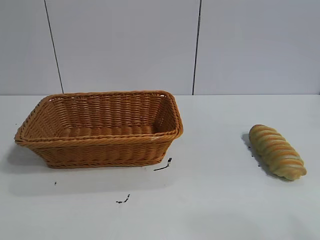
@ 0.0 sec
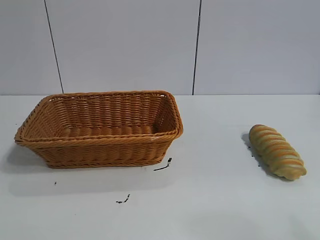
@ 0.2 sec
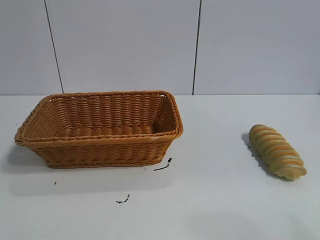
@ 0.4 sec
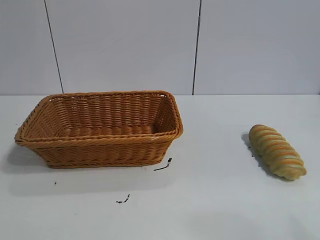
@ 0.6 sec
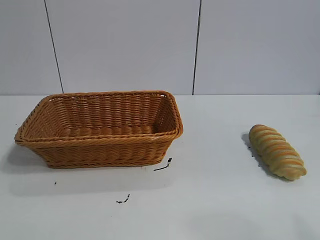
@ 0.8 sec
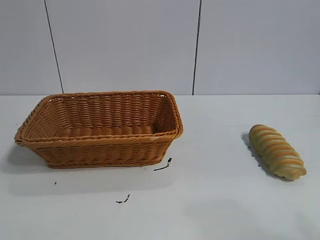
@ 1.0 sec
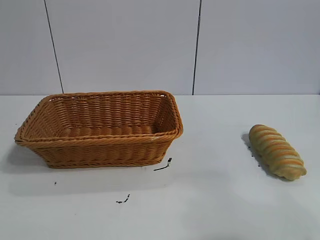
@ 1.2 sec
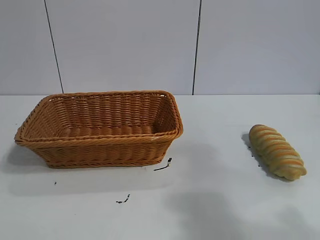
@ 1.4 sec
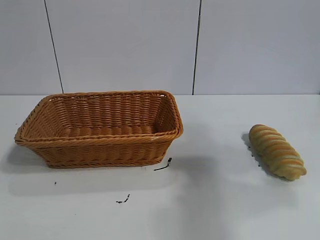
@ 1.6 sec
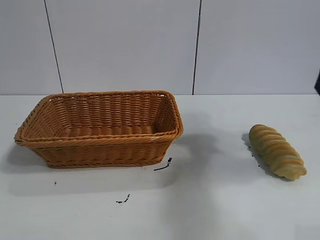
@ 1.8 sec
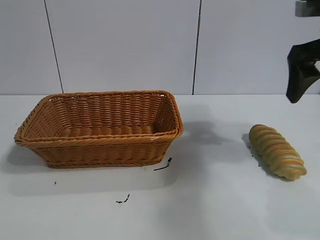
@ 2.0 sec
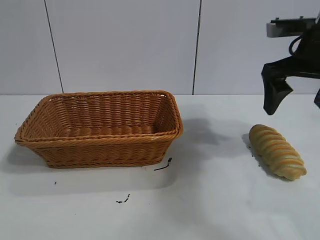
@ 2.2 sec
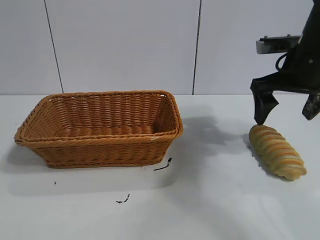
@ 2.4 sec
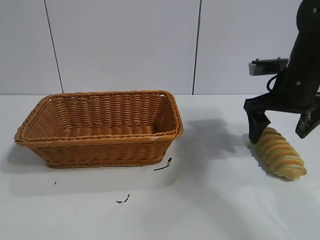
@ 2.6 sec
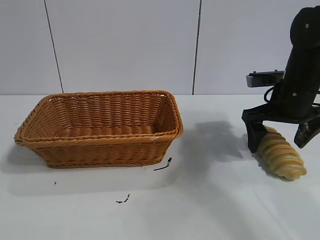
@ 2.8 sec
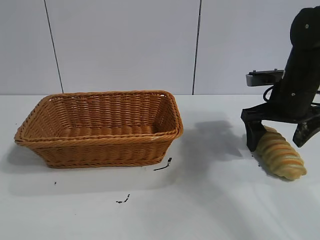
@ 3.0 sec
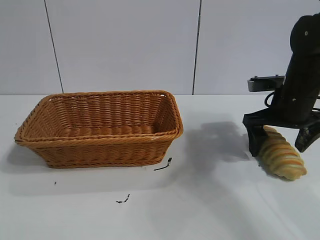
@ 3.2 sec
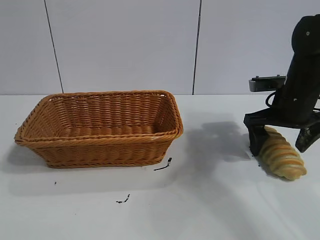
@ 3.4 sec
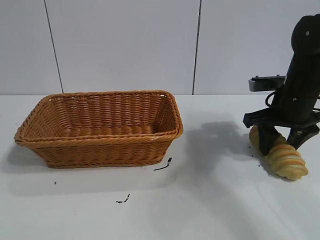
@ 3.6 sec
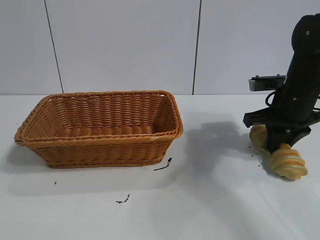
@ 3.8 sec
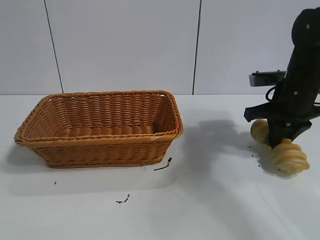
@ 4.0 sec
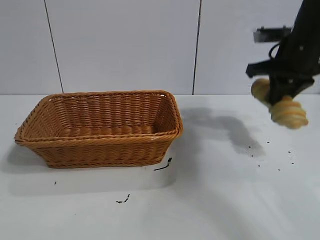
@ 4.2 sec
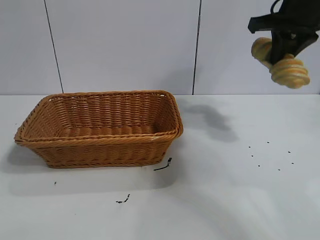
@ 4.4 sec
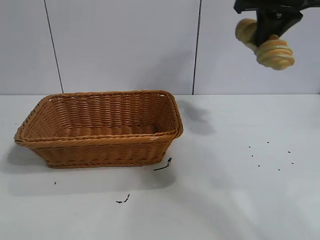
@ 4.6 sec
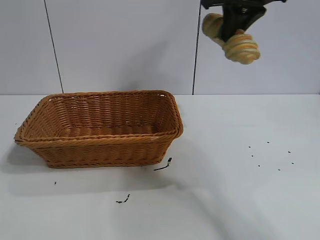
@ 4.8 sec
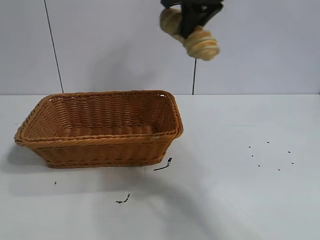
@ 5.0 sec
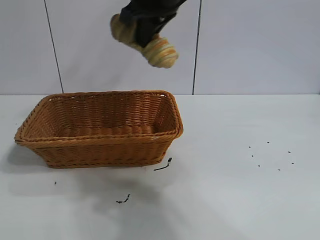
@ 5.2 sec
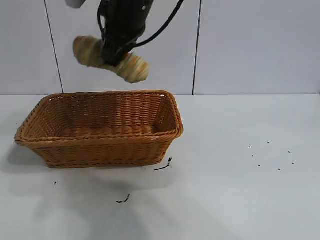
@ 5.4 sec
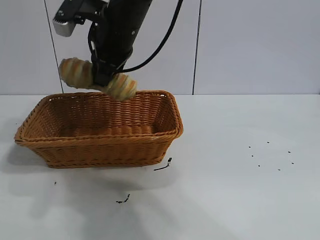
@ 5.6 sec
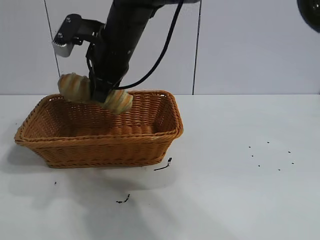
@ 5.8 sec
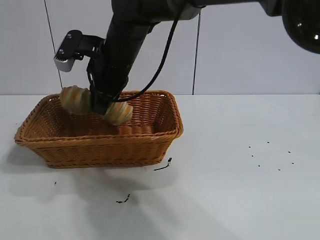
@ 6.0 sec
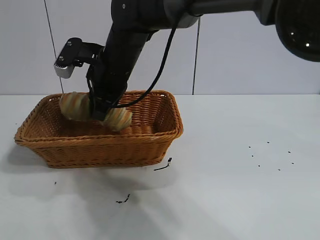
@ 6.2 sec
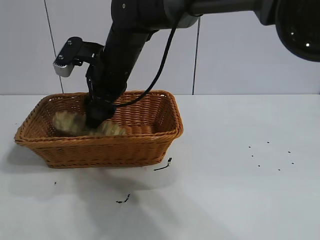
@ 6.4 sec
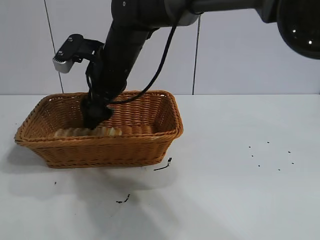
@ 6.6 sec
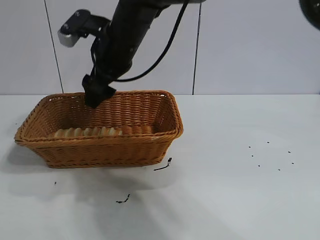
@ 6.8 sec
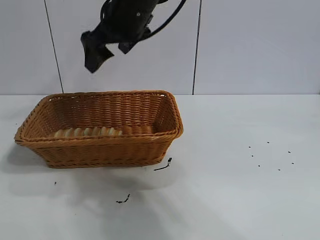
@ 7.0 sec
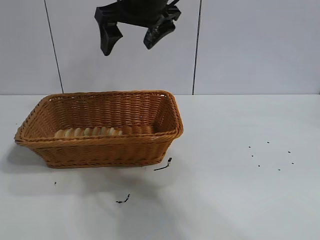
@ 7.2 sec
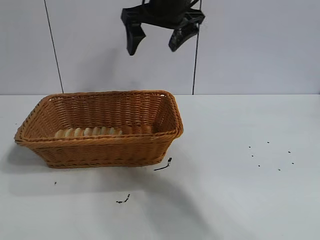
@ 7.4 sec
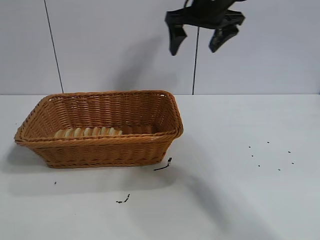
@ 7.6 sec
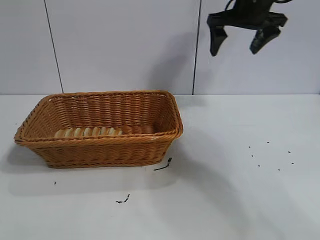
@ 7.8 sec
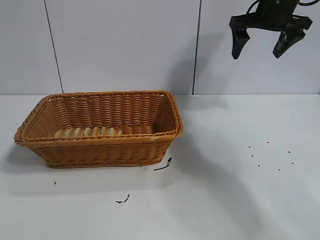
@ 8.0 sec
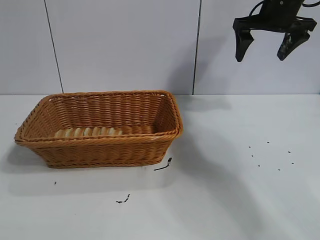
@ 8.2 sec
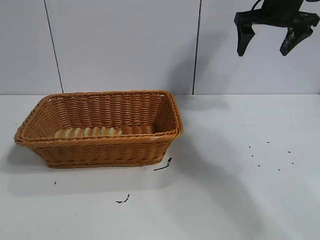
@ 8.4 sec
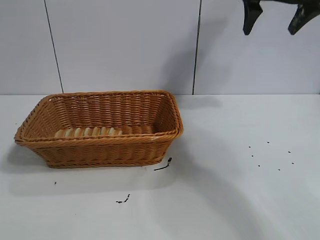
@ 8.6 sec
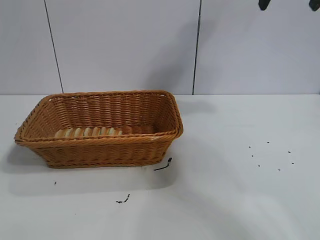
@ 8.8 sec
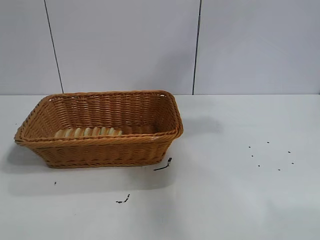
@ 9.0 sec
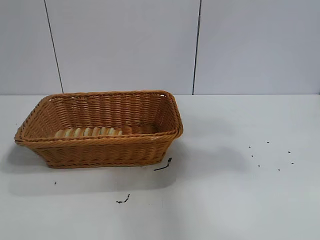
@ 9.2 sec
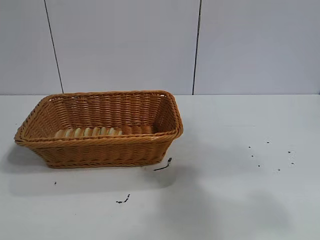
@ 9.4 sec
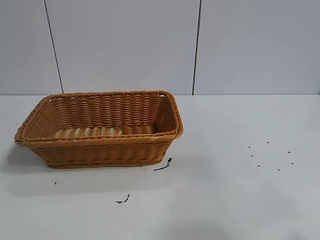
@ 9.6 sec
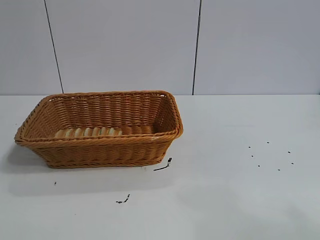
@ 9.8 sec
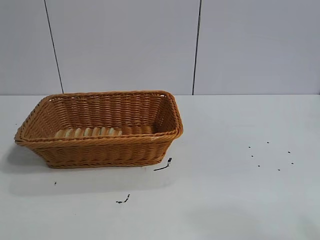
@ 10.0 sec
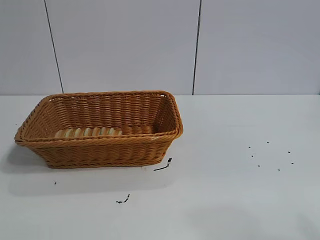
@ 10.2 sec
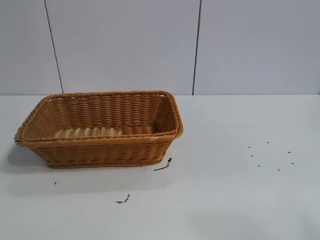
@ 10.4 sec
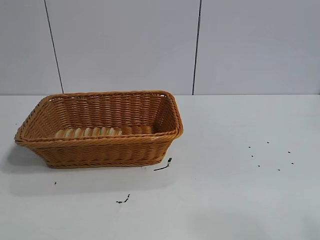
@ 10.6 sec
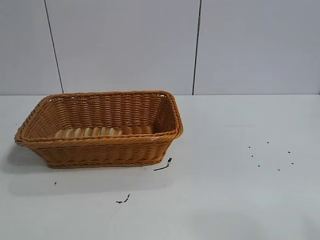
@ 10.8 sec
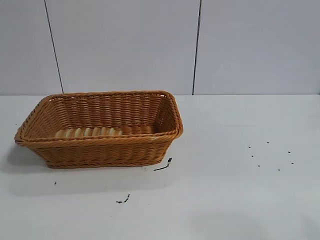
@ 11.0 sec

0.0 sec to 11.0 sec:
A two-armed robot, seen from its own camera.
Task of the whole recording: pick up the long bread and put it into the basket.
Step, 1.8 sec to 4.0 sec: Grasp the long bread with right gripper.
Step, 4.2 sec to 6.6 sec: Place the long bread in the basket with right gripper.
